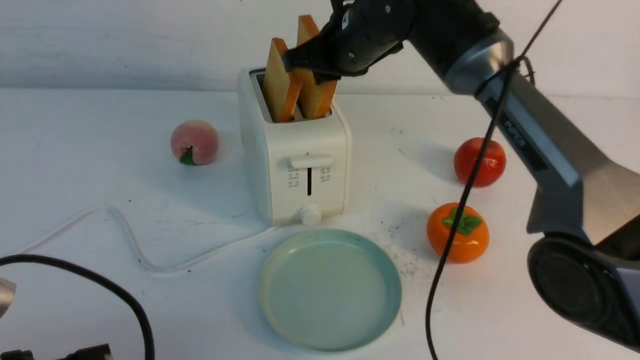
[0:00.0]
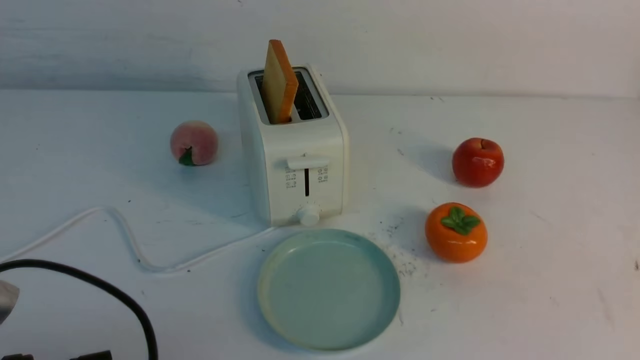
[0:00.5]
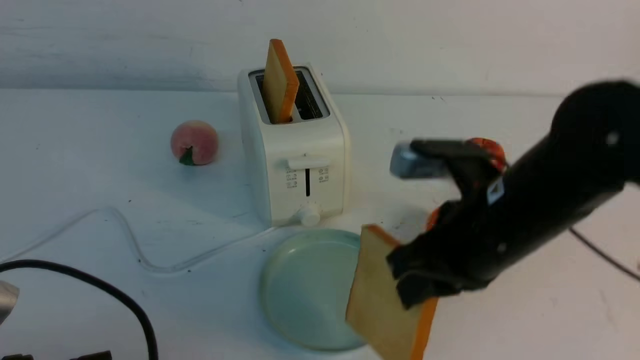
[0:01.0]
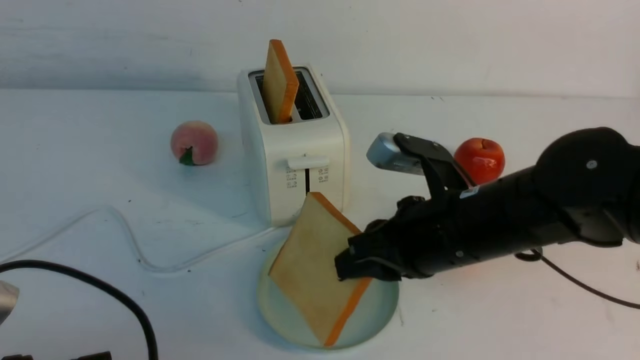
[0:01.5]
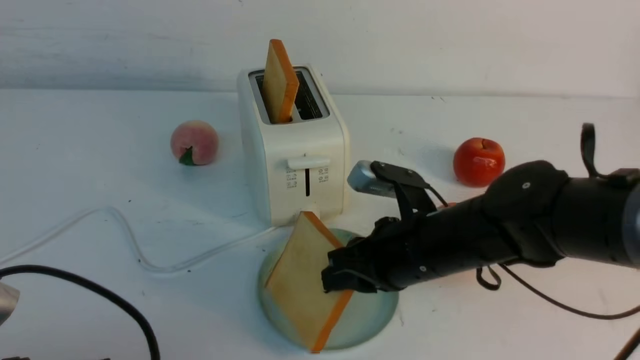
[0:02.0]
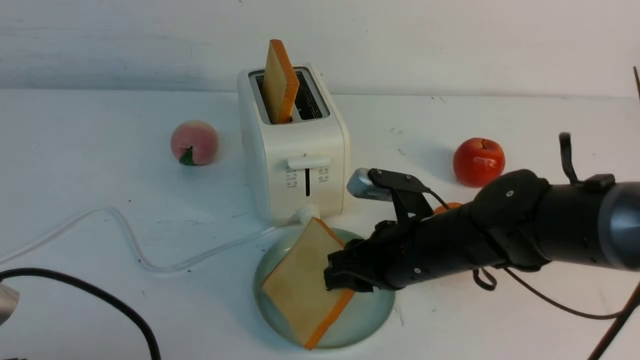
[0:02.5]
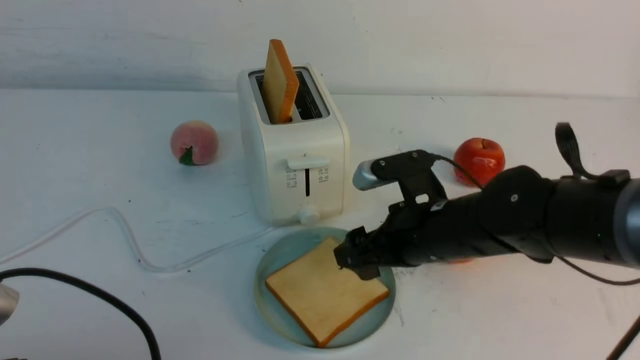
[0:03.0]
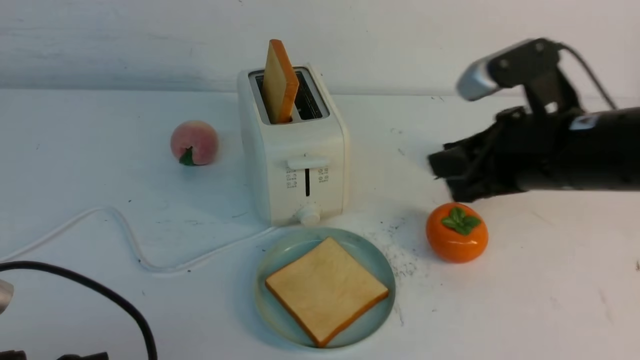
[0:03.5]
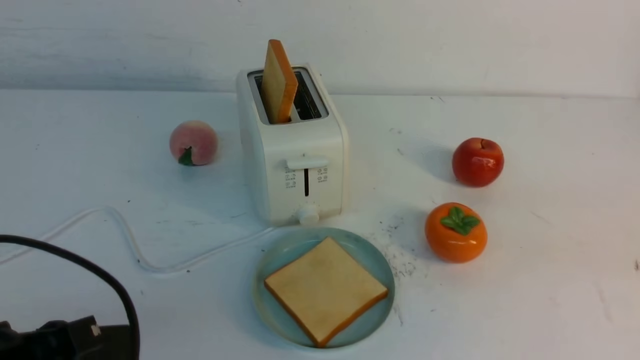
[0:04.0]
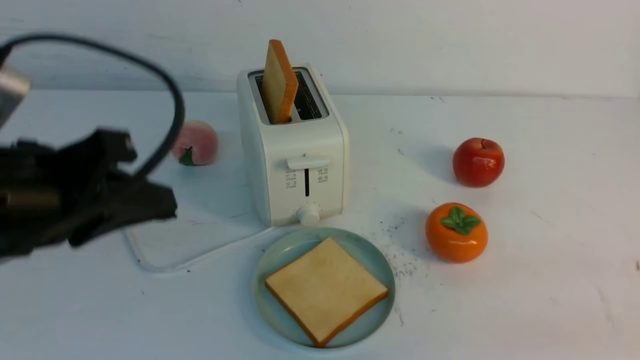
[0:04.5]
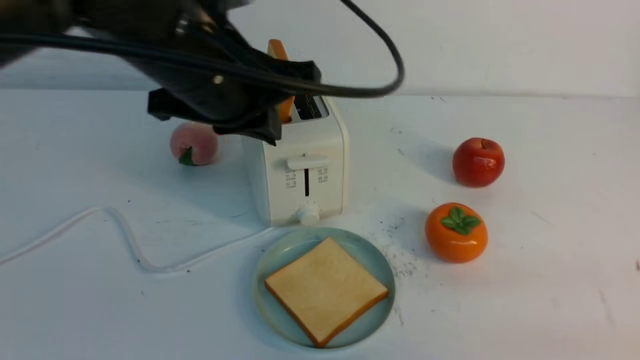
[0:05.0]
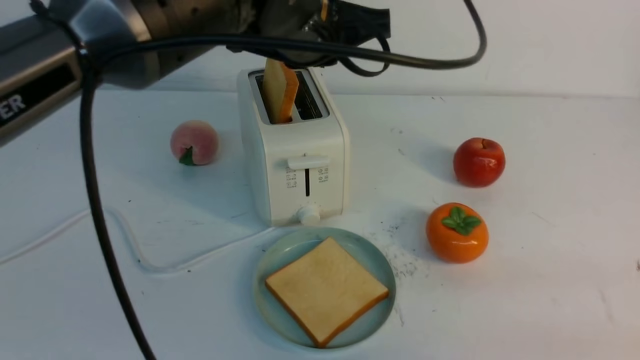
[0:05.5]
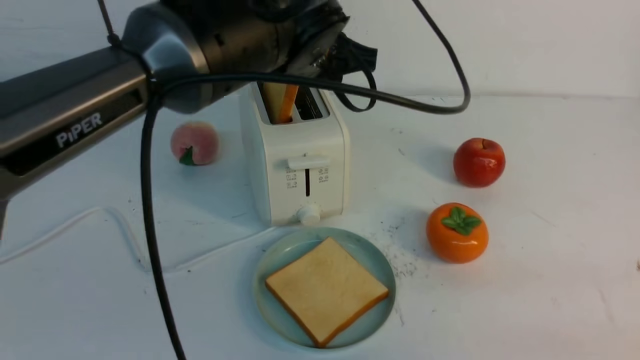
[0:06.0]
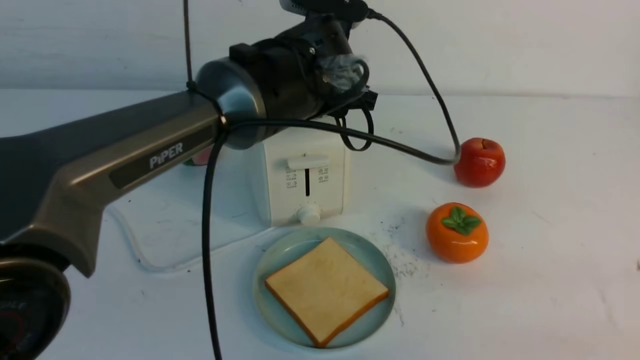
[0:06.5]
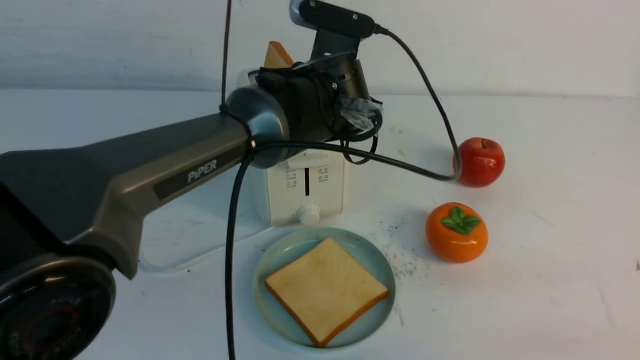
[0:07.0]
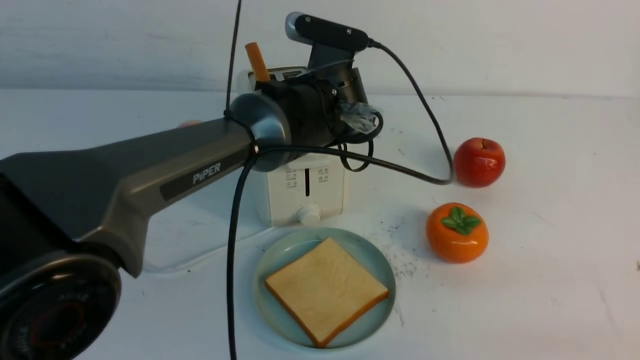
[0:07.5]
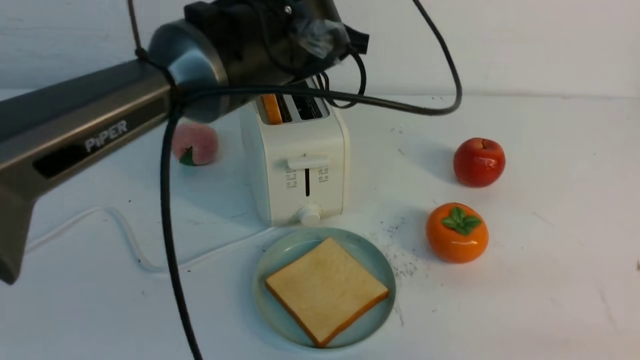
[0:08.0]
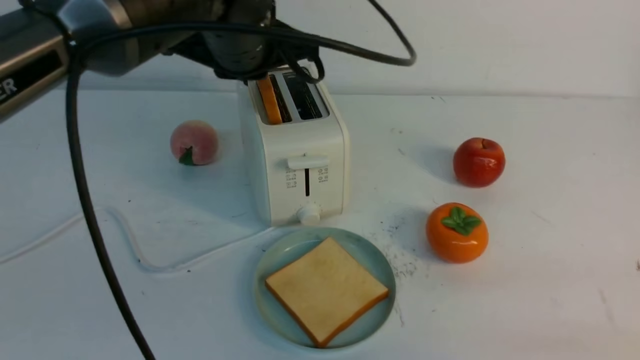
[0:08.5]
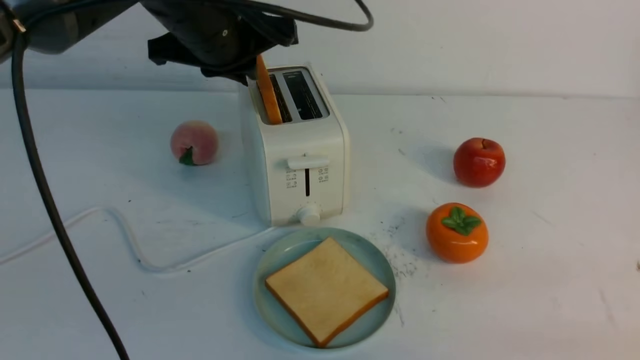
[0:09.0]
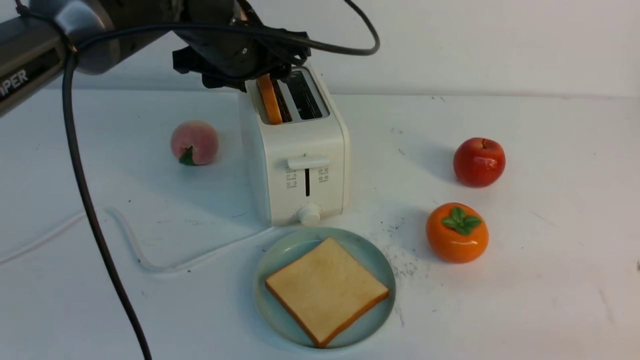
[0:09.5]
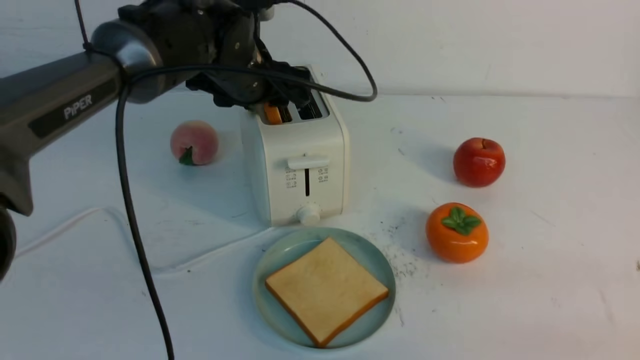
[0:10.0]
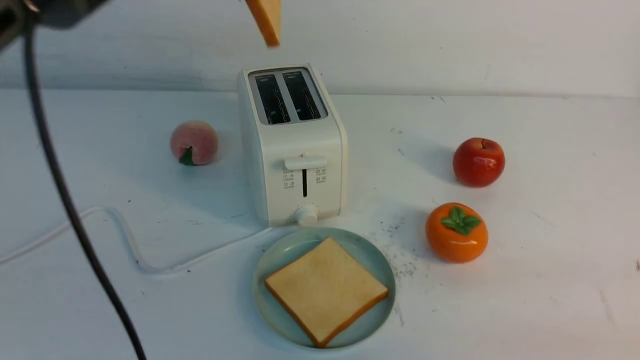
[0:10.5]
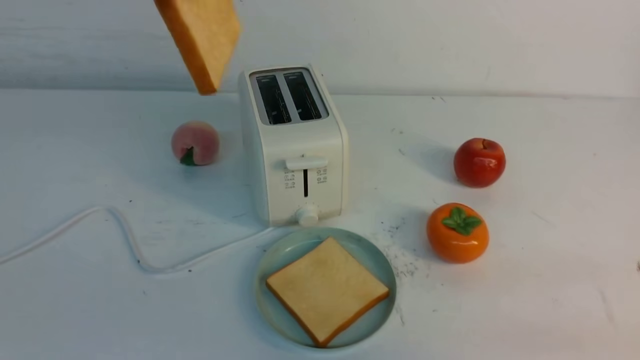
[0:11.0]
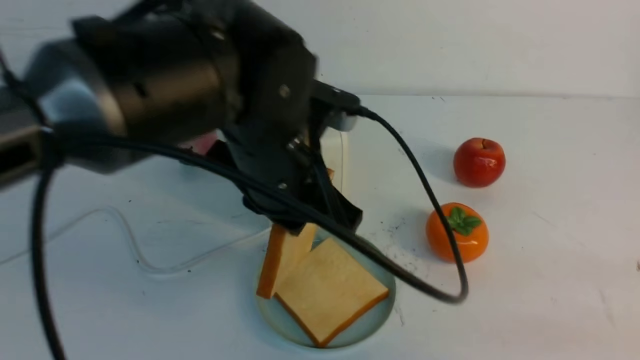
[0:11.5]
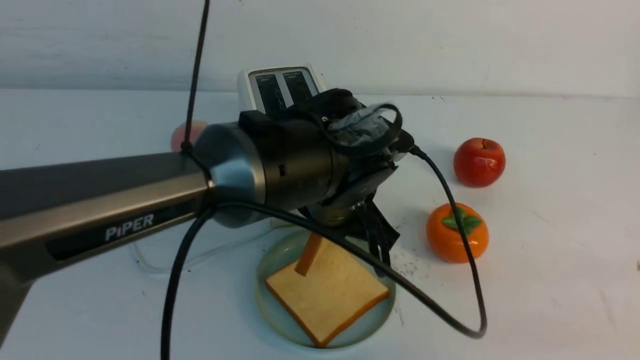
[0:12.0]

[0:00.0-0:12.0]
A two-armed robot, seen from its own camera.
Task of the whole recording: take toasted bread from bread machine on white table place on plate.
Step, 0:00.5 to 0:03.0: use the right arm to put a slice of bread into the plate.
Step, 0:03.5 to 0:10.0: use the left arm to take out a slice of bread.
0:00.0 to 0:02.0: The right gripper is displaced downward and backward by roughly 25 cm.
0:02.0 to 0:04.0: The right gripper heads to the right, upward and backward, covering about 25 cm, and opens, then closes once more.
0:04.0 to 0:06.0: The right gripper is displaced backward and downward by some 10 cm. The left gripper is displaced forward, to the right and upward by some 35 cm, and opens up.
0:06.0 to 0:08.0: The left gripper moves approximately 10 cm downward and comes back, and closes up.
0:08.0 to 0:10.0: The left gripper shifts some 10 cm to the left, forward and downward, and opens up.
0:10.0 to 0:12.0: The left gripper is displaced backward and to the right by some 15 cm, reaches about 15 cm upward, then returns, and closes.

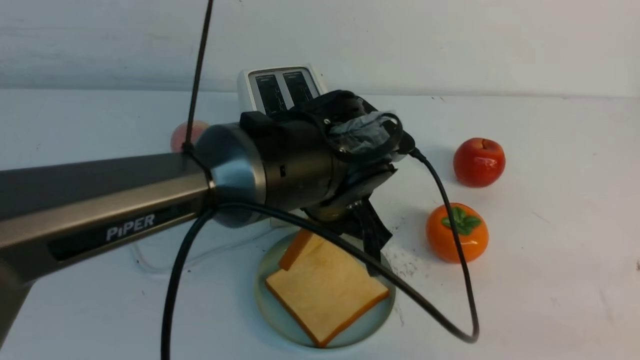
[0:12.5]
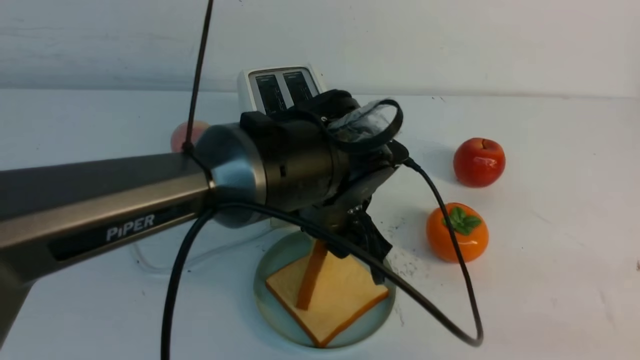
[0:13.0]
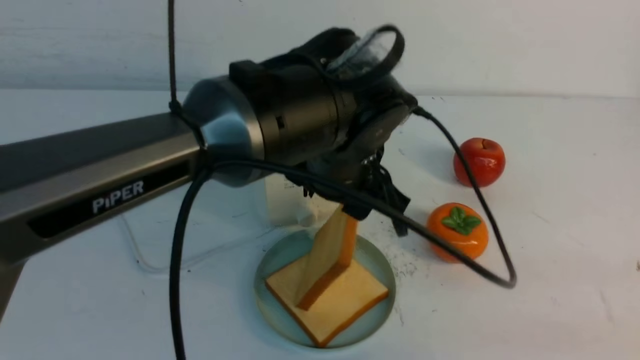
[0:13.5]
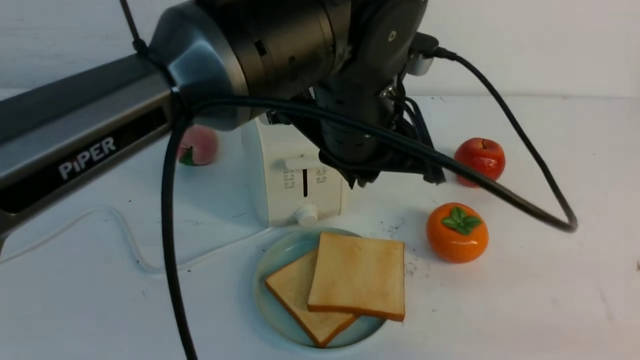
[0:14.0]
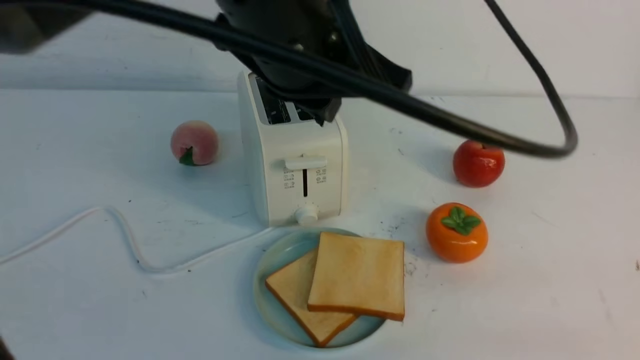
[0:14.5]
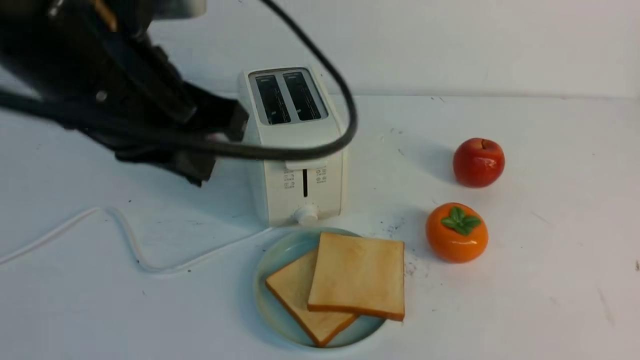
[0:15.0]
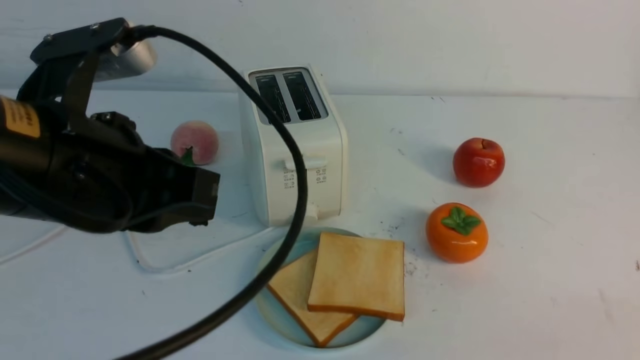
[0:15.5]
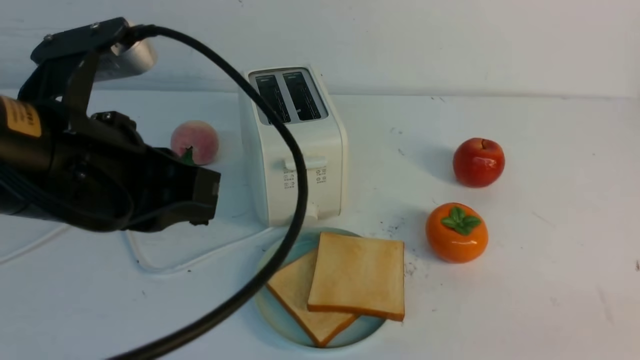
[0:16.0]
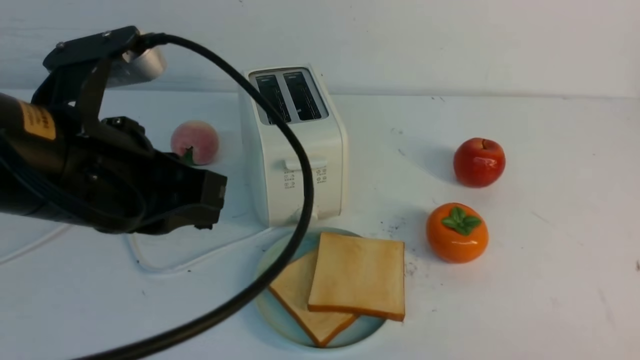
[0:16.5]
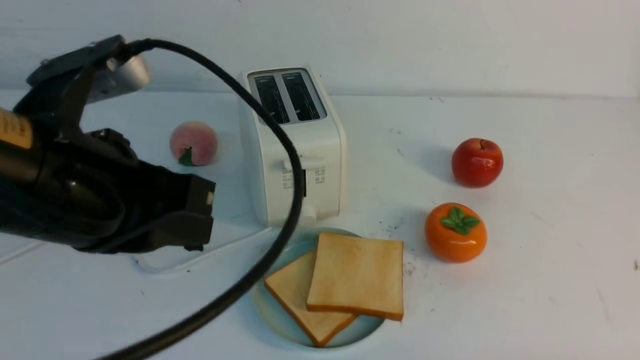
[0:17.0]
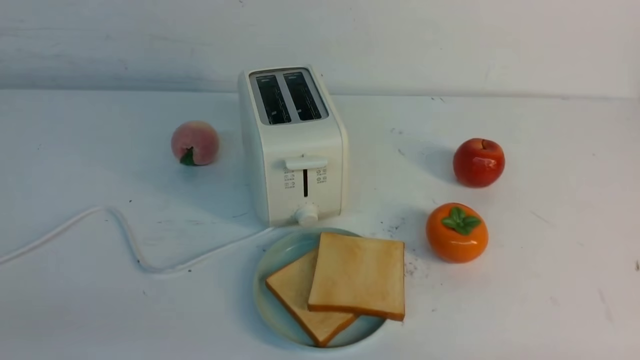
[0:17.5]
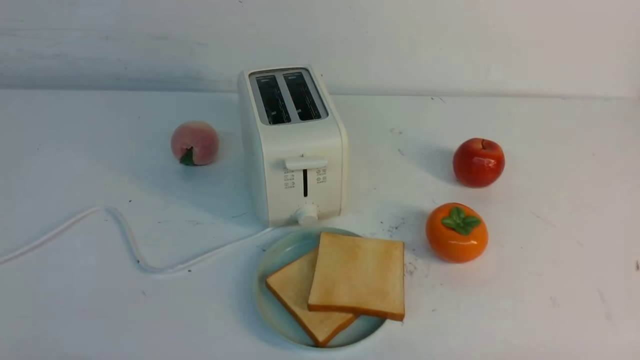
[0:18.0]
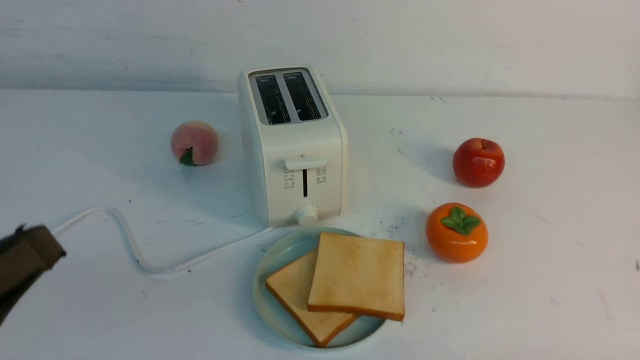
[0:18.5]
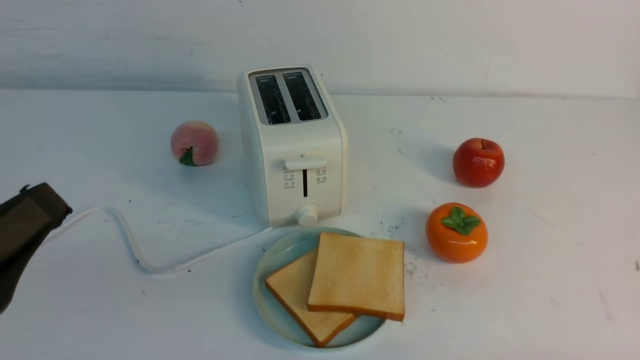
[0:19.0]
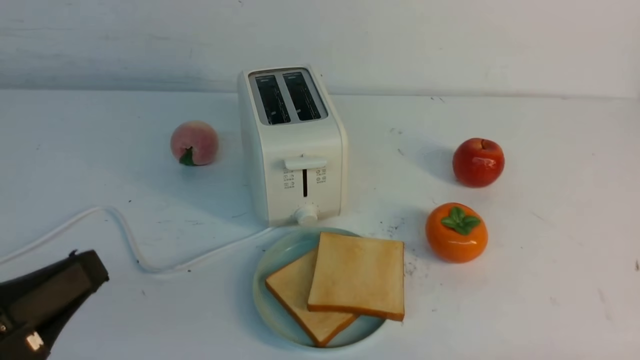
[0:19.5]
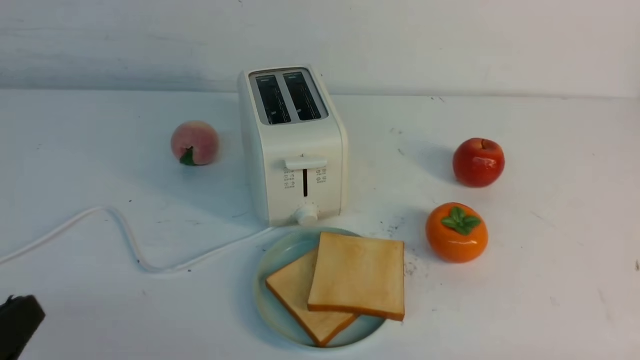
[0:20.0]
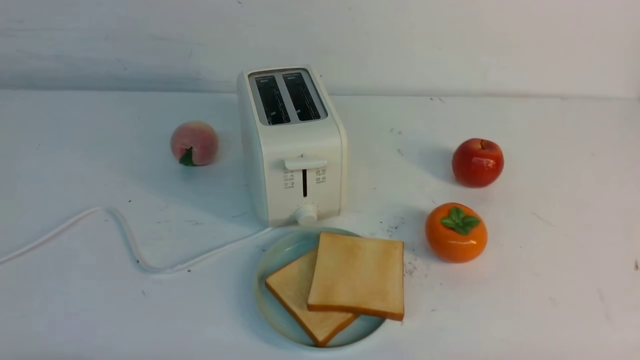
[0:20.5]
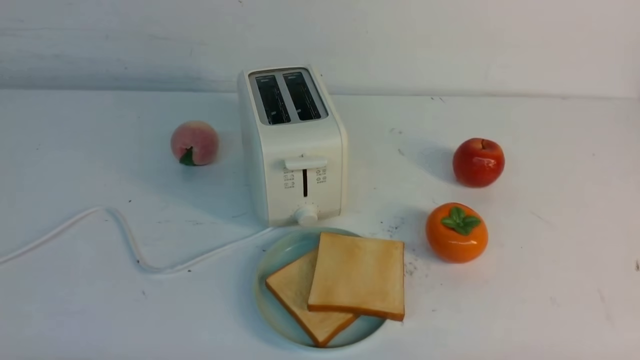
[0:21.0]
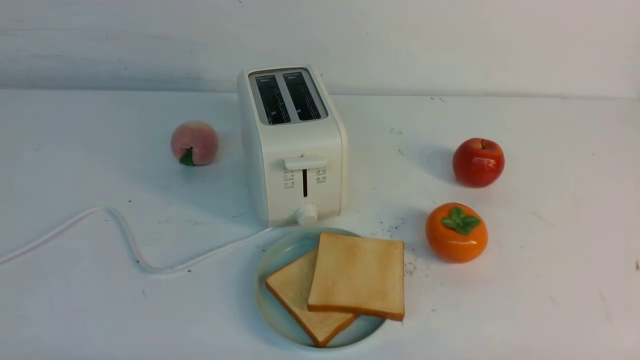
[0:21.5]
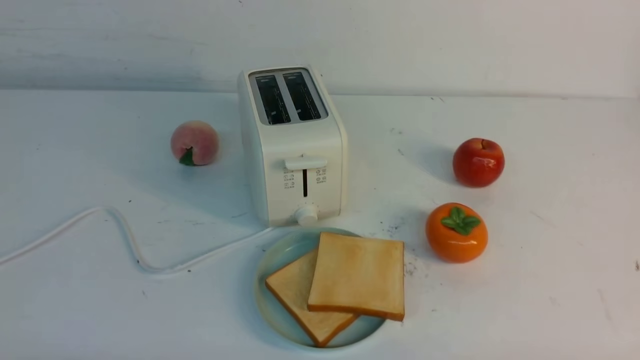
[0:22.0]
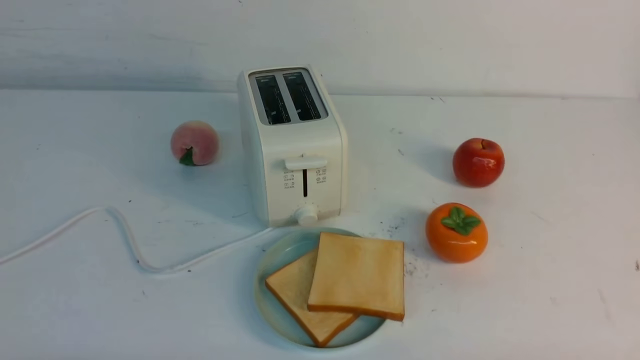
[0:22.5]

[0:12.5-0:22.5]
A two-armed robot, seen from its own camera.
Task of the whole recording: take toasted bread from bread machine on white table place on plate.
0:12.5 to 0:14.5: The left gripper heads upward, covering about 15 cm, and closes.
0:14.5 to 0:16.5: The left gripper travels to the left, downward and backward by roughly 15 cm, while the right gripper shifts some 5 cm downward.
0:16.5 to 0:18.5: The left gripper is displaced backward and to the left by approximately 15 cm.
0:18.5 to 0:20.5: The left gripper heads downward, covering roughly 15 cm.
